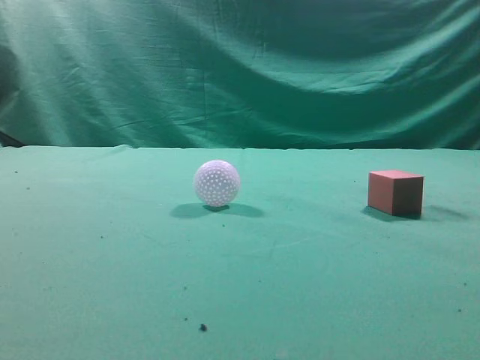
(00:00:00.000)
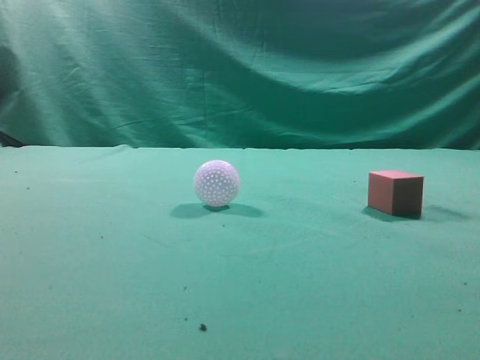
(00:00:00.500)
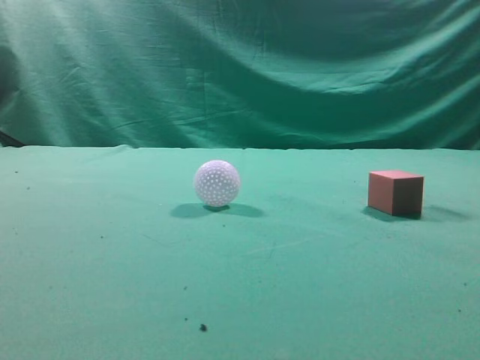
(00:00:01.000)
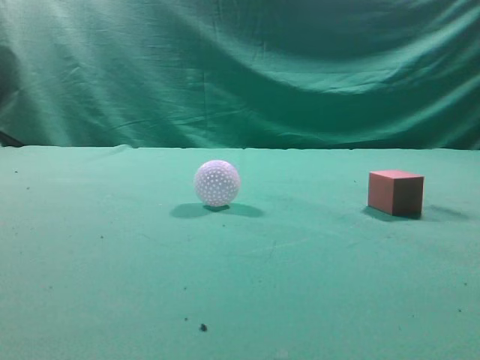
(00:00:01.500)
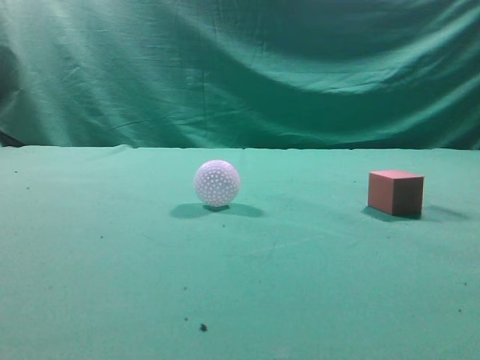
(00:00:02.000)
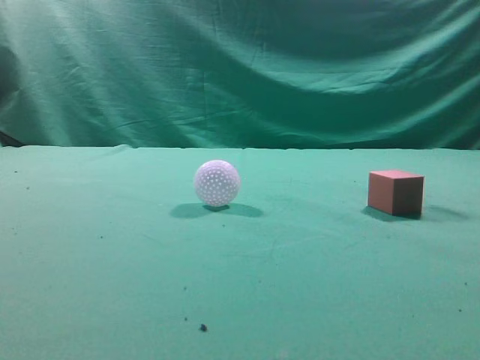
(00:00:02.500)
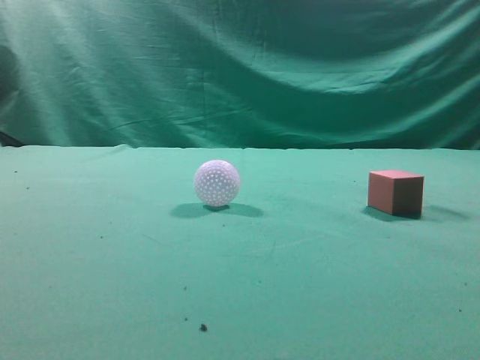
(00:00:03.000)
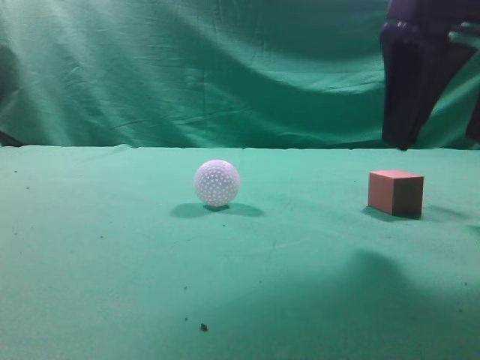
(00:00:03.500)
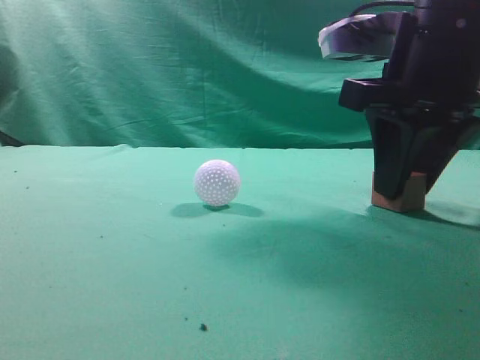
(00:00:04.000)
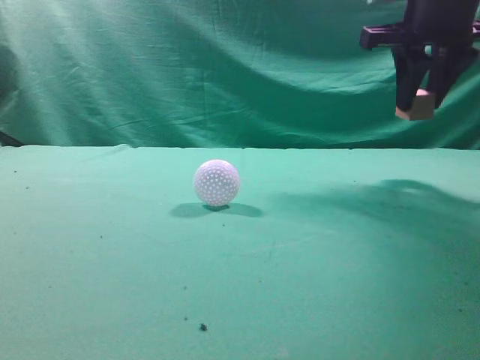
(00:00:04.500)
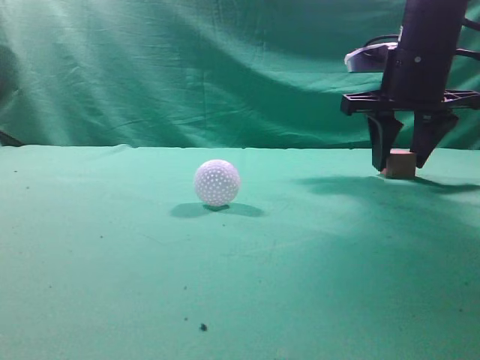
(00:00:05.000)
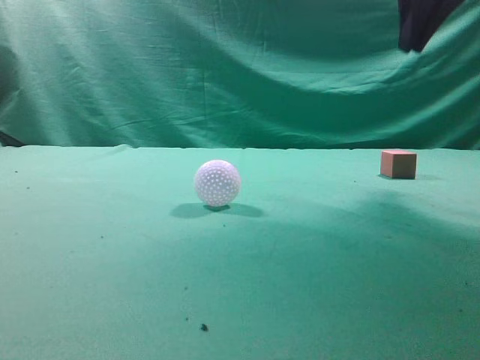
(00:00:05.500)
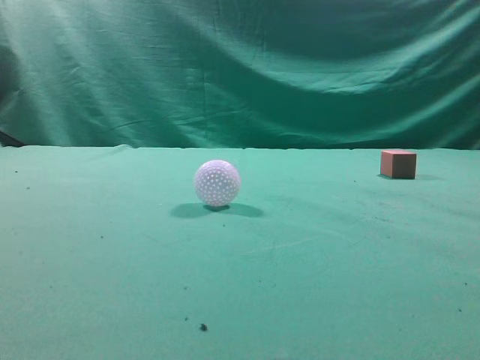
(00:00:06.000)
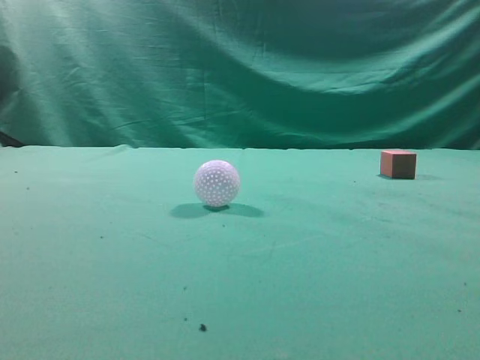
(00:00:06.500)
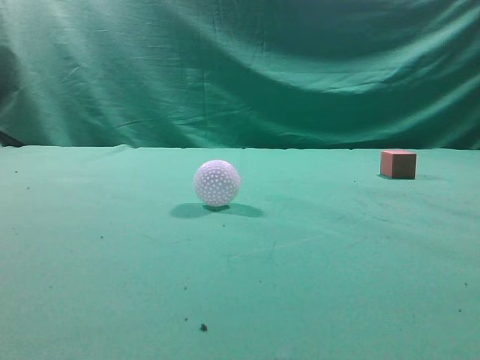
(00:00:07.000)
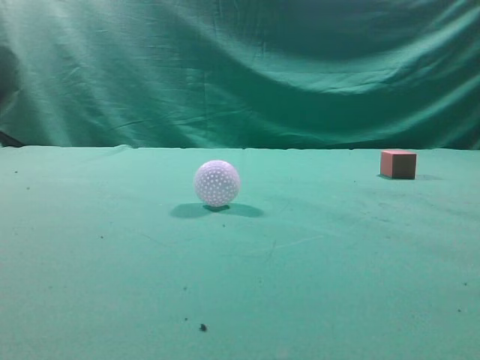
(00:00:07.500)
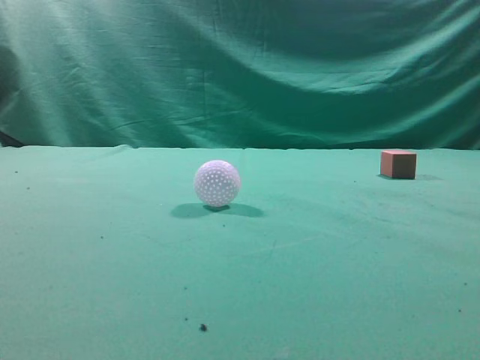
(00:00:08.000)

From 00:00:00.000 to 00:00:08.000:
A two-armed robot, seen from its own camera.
Task of the whole recording: pick up the cube block and place it in another position on the table.
Step, from 00:00:00.000 to 00:00:04.000: Pick up the small cube.
Step, from 00:00:04.500 to 00:00:05.000: Place the small cube on the ahead of the table.
From 00:00:02.000 to 00:00:04.000: The right gripper goes approximately 30 cm forward, to the left and downward, and opens and closes again.
From 00:00:04.000 to 00:00:06.000: The right gripper shifts roughly 25 cm upward, backward and to the right, and opens, then closes again.
